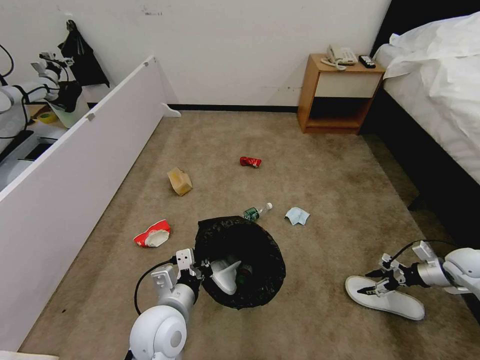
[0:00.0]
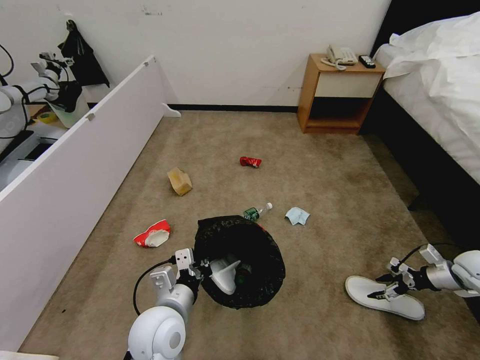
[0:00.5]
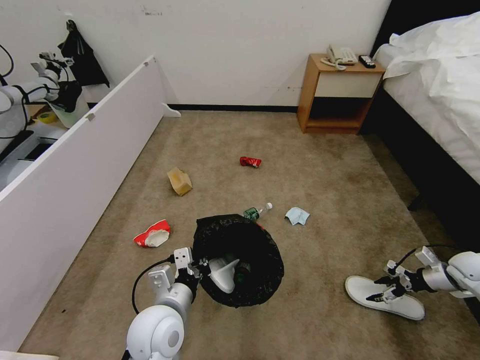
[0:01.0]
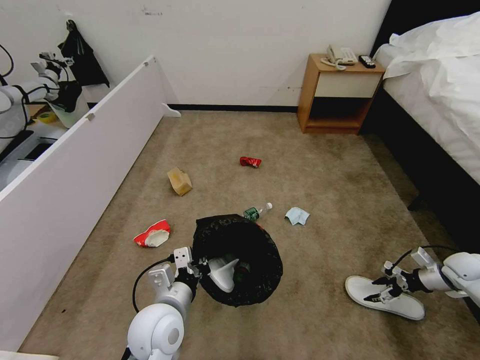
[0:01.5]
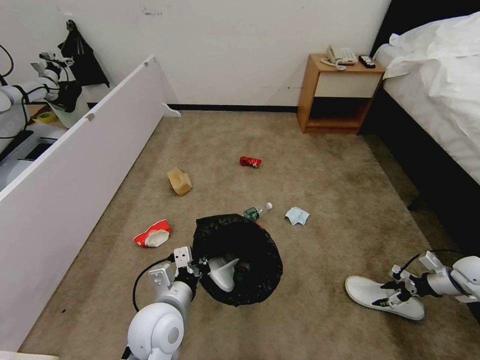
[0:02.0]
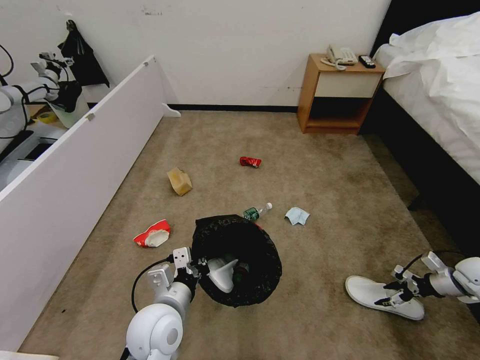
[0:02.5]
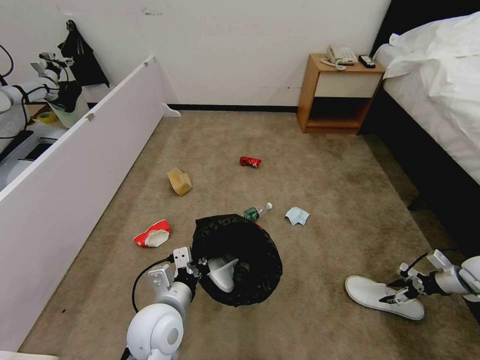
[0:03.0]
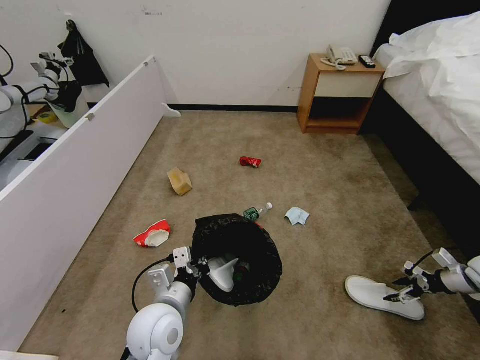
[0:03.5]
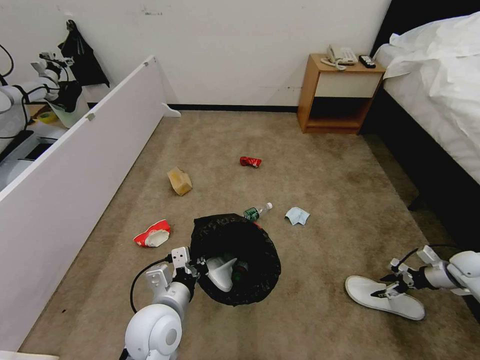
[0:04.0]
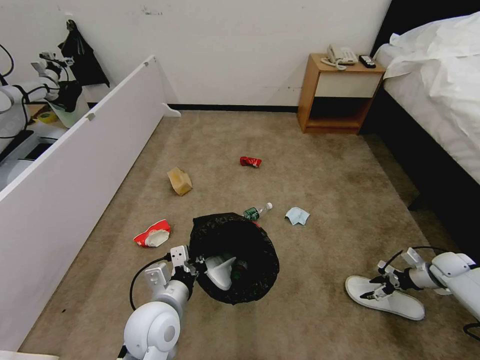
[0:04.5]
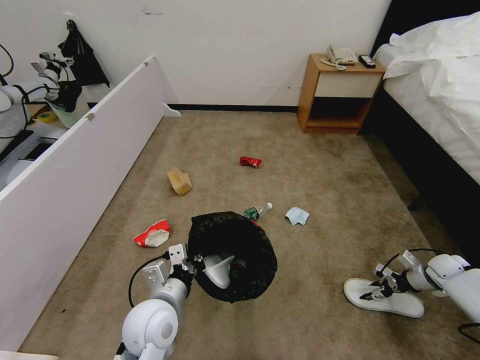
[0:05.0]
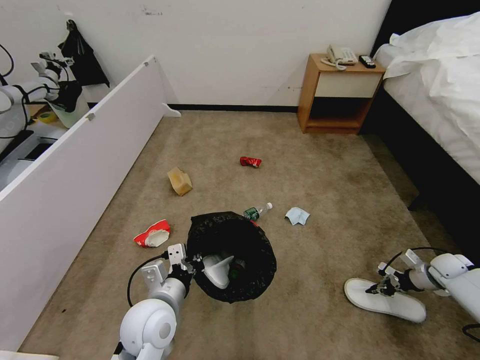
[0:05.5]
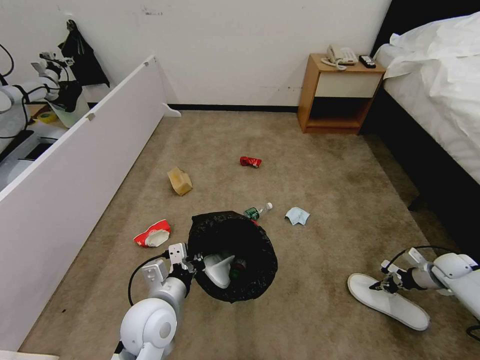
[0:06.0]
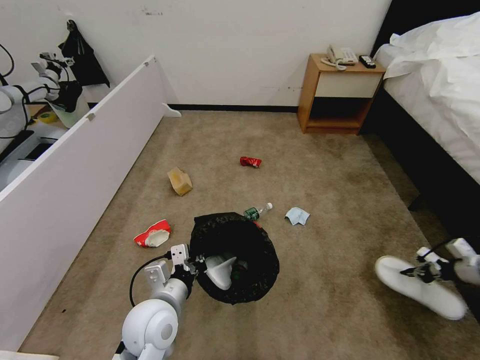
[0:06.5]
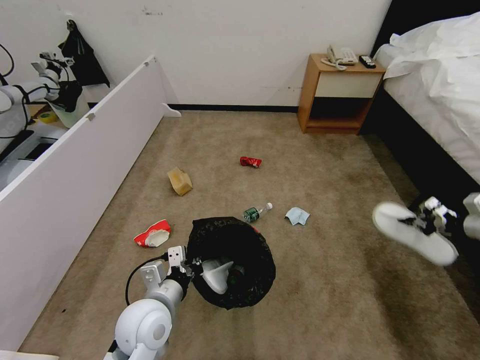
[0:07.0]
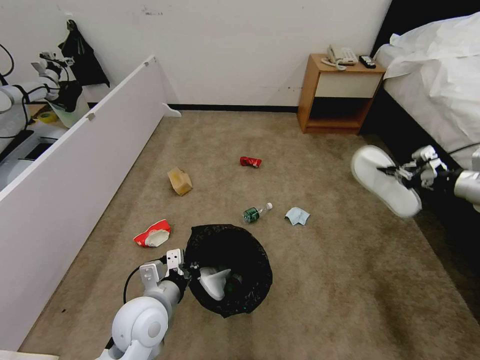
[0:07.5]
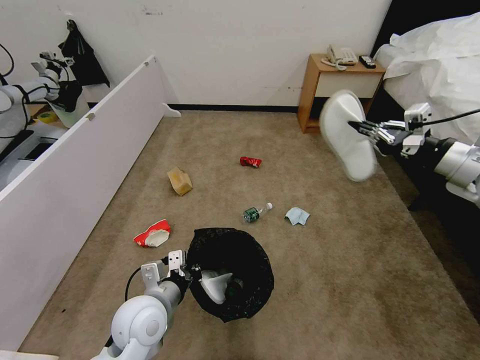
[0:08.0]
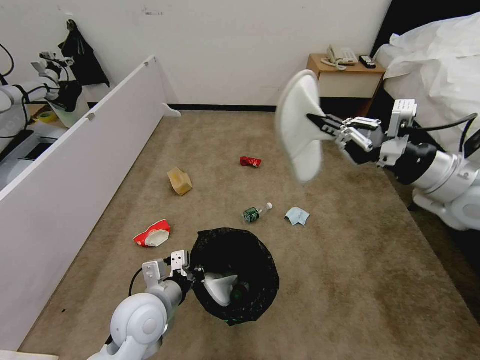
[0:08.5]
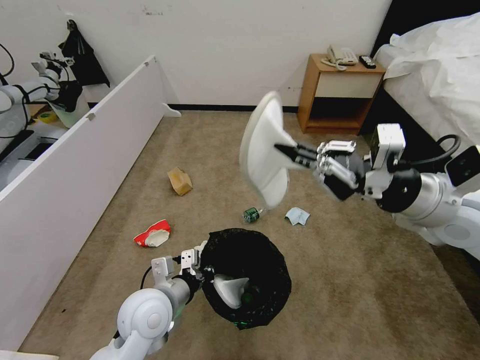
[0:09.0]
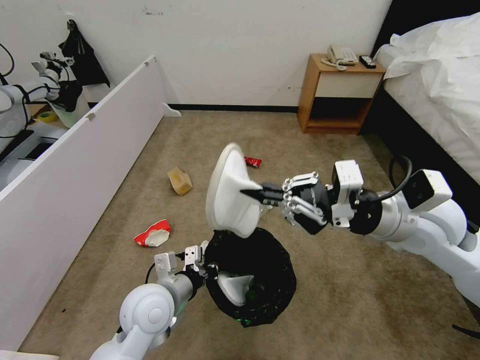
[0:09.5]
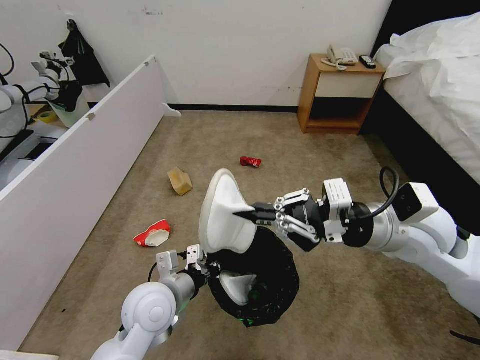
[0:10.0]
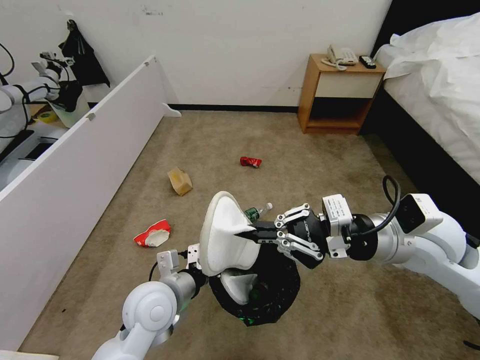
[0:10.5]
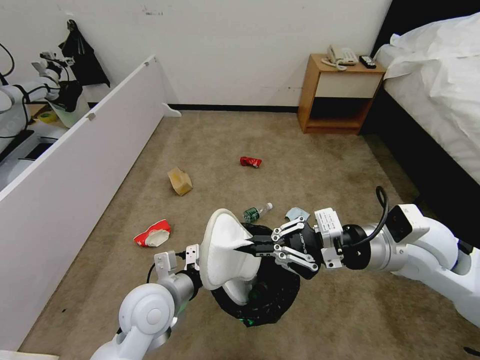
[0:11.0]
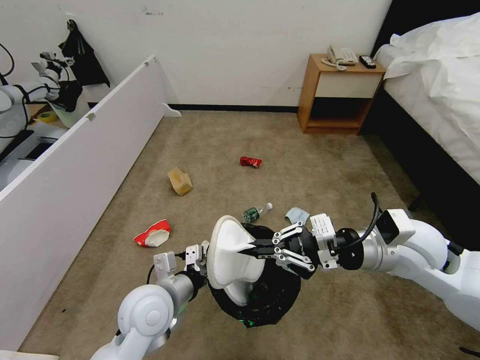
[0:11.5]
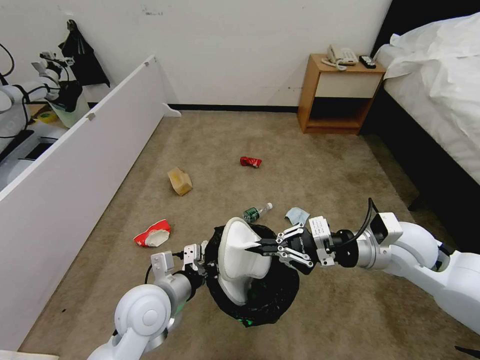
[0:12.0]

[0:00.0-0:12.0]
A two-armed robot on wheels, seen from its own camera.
Task of the whole recording: Pick up the trash bin, then pick up the garbage from the floor and place it into the trash bin.
0.0 to 2.0 s: There are only small adjustments of the grippers.
2.0 to 4.0 s: There are only small adjustments of the grippers.
4.0 to 6.0 s: The right gripper closes up.
6.0 to 8.0 s: The right gripper heads upward and to the left, covering some 40 cm.
8.0 to 10.0 s: The right gripper is displaced to the left by some 15 cm.
10.0 to 12.0 s: The right gripper moves downward, roughly 5 cm.

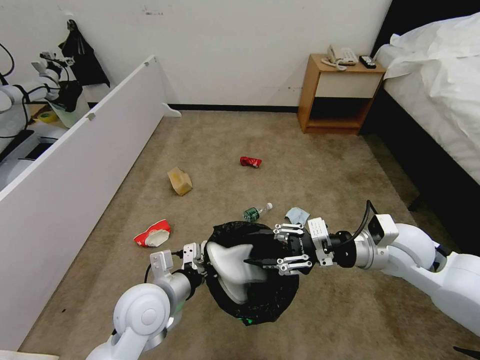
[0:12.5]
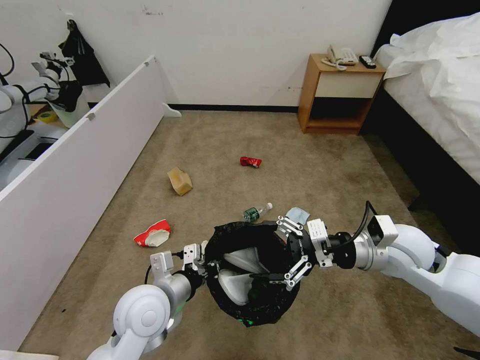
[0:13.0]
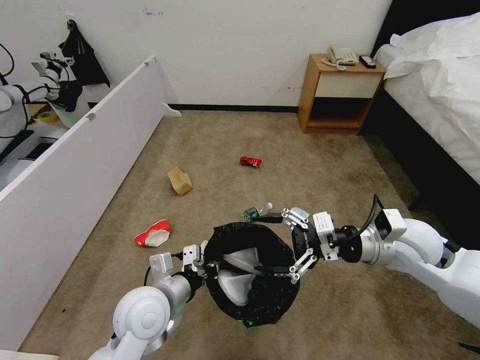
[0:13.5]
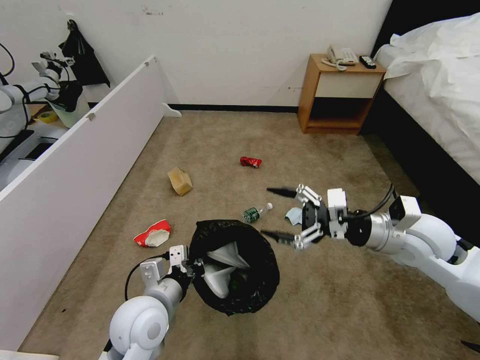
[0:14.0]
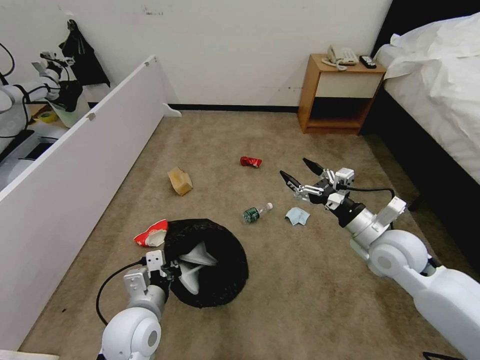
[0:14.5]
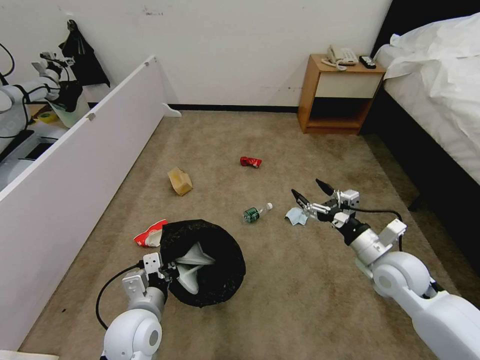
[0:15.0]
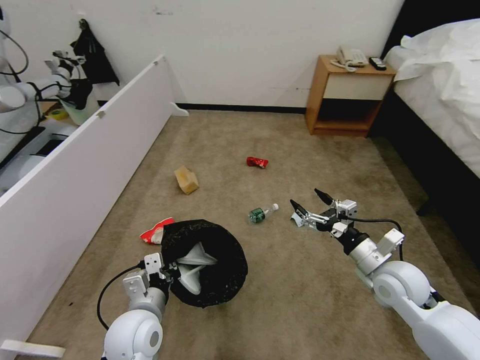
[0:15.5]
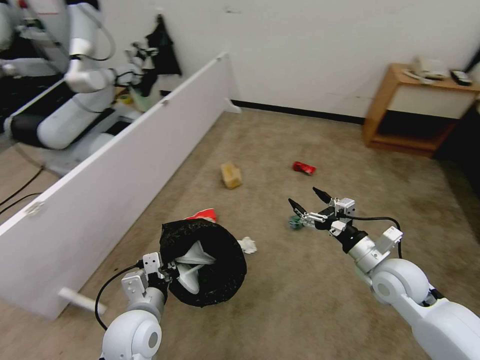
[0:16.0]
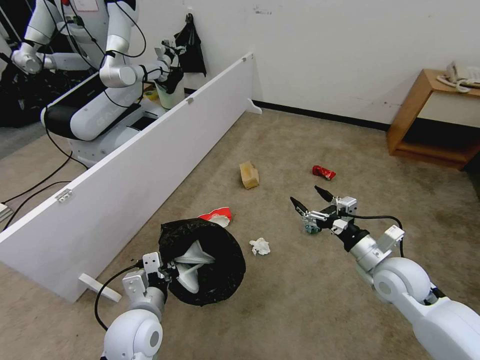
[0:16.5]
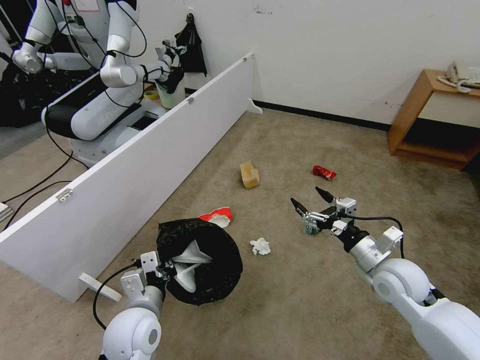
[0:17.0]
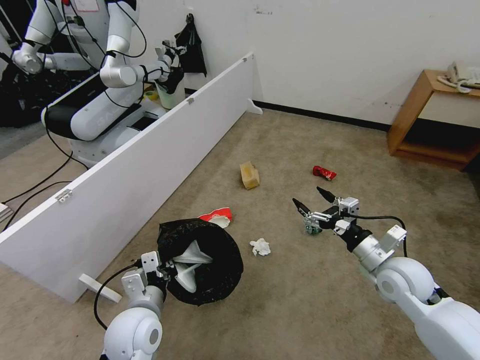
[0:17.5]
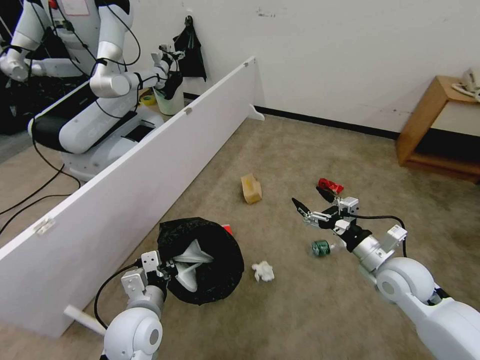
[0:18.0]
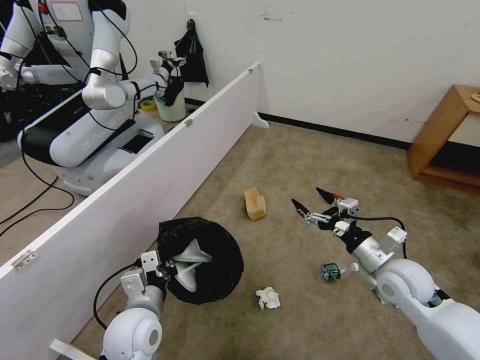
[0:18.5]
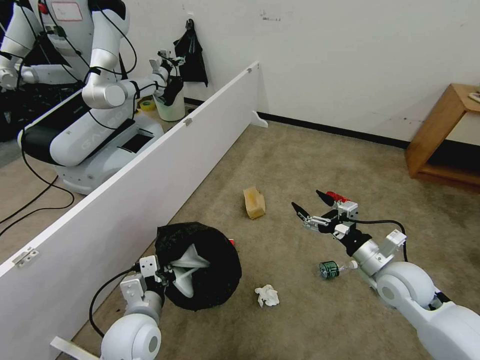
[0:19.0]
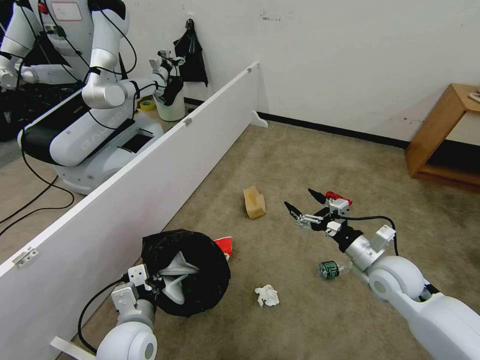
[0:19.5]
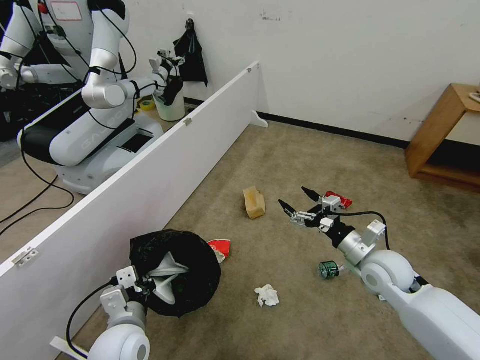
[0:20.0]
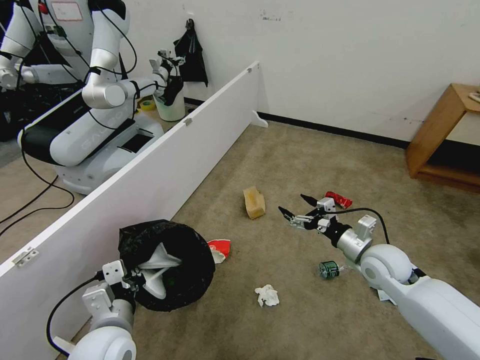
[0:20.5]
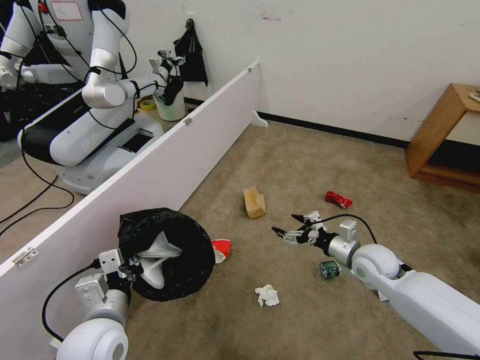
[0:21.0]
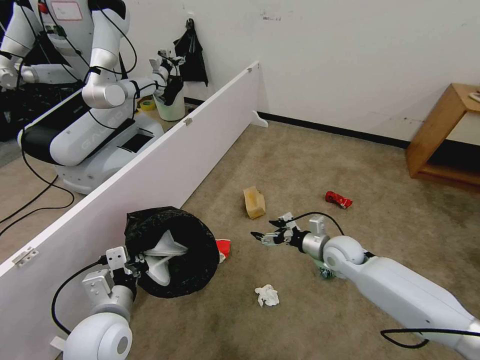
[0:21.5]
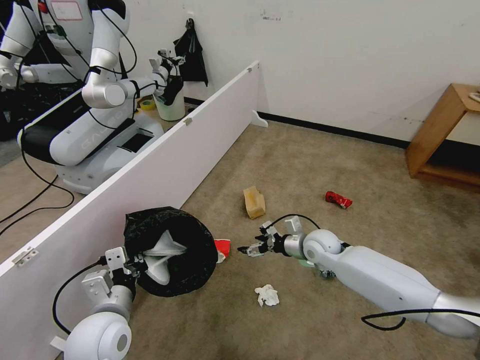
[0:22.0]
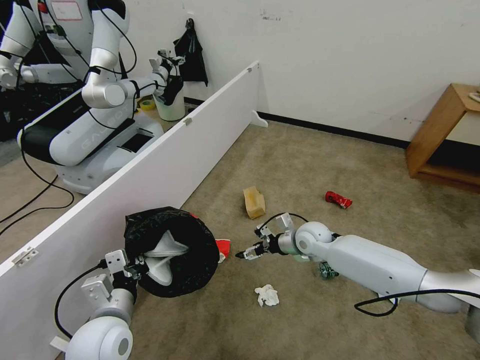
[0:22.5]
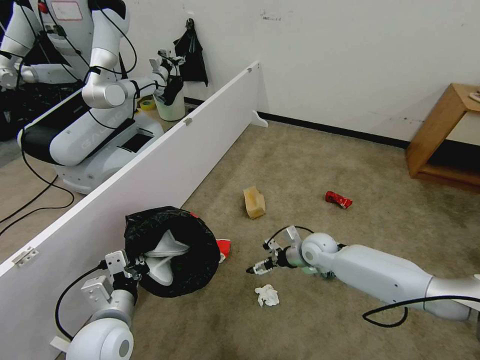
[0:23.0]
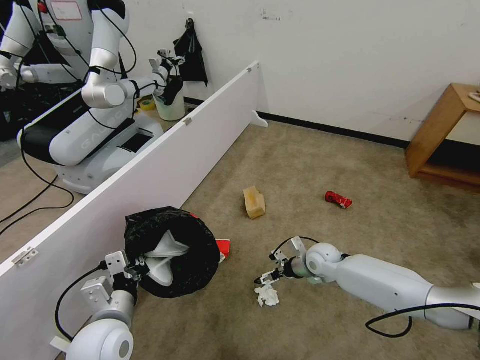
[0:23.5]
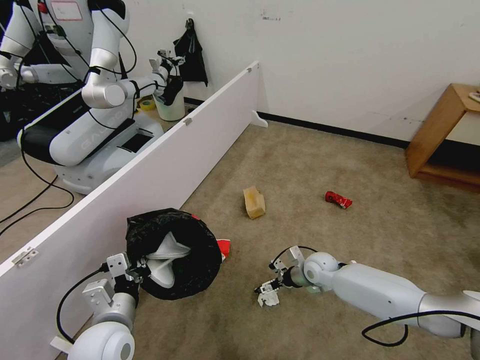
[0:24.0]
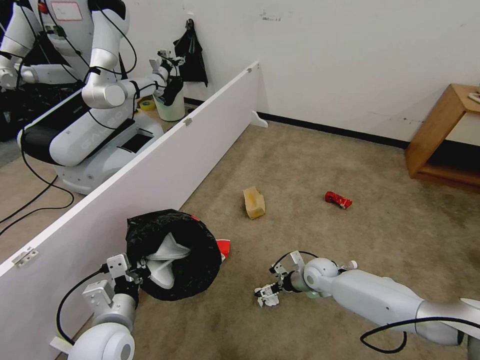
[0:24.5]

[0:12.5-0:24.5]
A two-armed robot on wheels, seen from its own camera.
Task of the whole recording: Pick up the trash bin, then pick up the garbage from the floor and place it into the trash bin.
12.5 to 14.5 s: The left gripper shifts by some 5 cm. Meanwhile the right gripper opens up.
14.5 to 16.5 s: The right gripper moves downward, about 5 cm.
18.5 to 20.5 s: The left gripper moves roughly 5 cm.
20.5 to 22.5 s: The right gripper travels to the left, forward and downward by roughly 15 cm.
22.5 to 24.5 s: The right gripper is displaced downward and backward by approximately 10 cm.

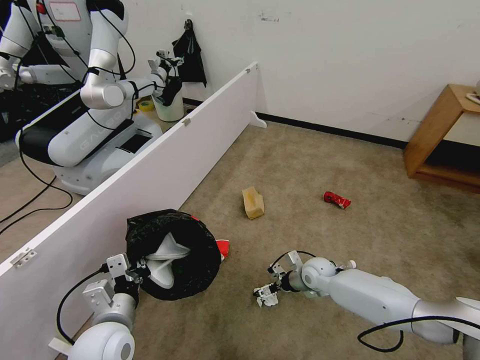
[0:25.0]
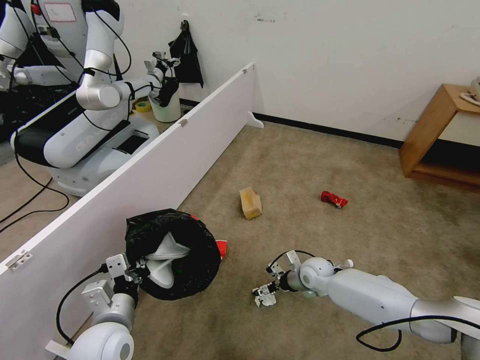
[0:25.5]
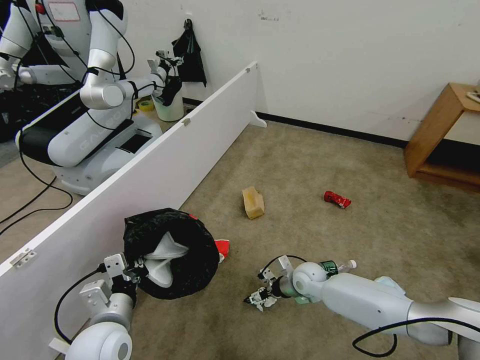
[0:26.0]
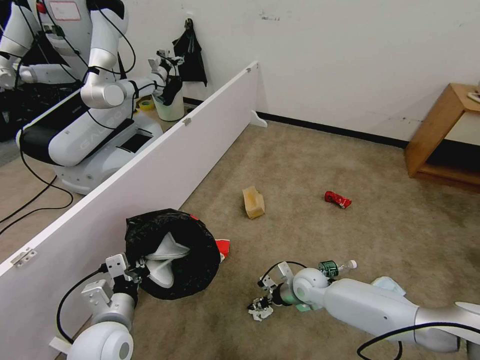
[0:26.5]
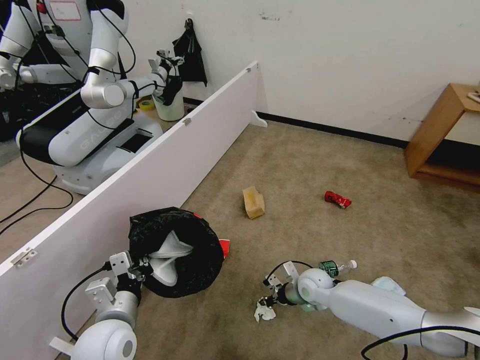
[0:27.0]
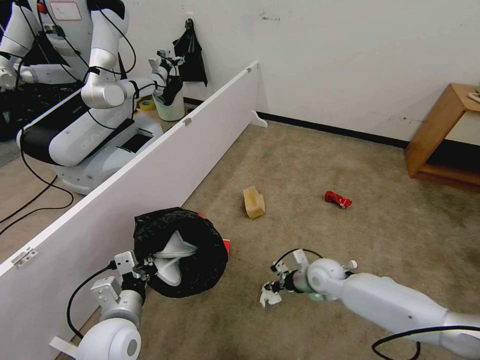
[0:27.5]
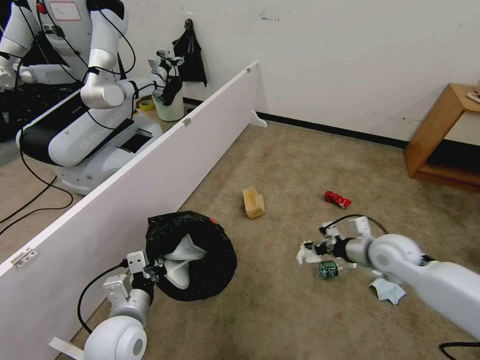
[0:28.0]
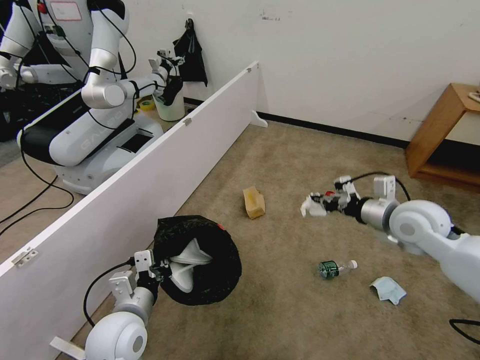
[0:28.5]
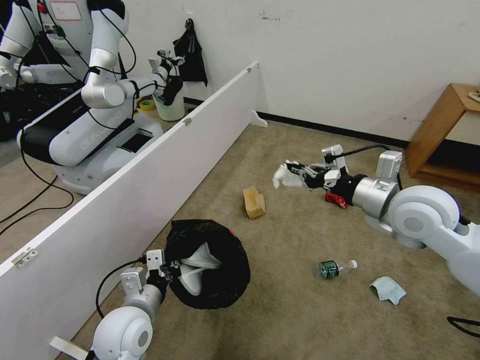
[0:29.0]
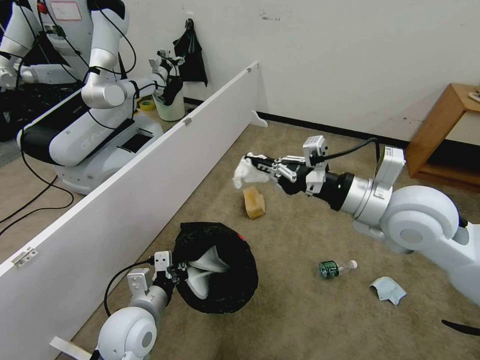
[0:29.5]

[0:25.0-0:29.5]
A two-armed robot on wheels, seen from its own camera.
Task of the whole recording: Pick up the trash bin, then pick up the garbage from the floor and place it into the trash bin.
25.0 to 27.0 s: The right gripper closes its fingers.
27.0 to 29.5 s: The right gripper is displaced upward by about 35 cm.
